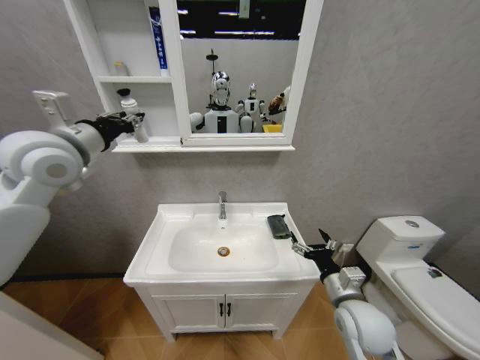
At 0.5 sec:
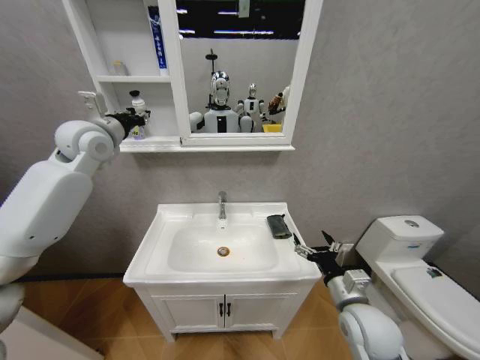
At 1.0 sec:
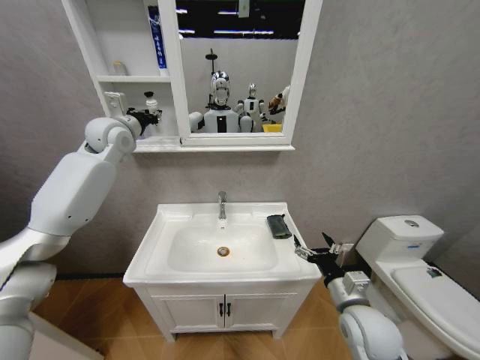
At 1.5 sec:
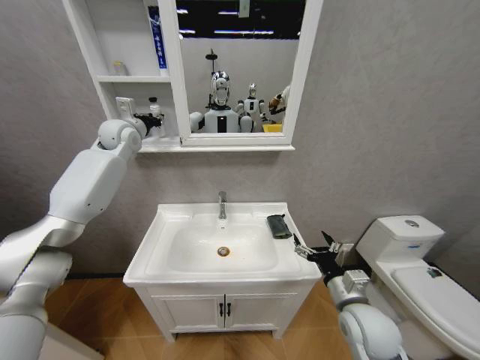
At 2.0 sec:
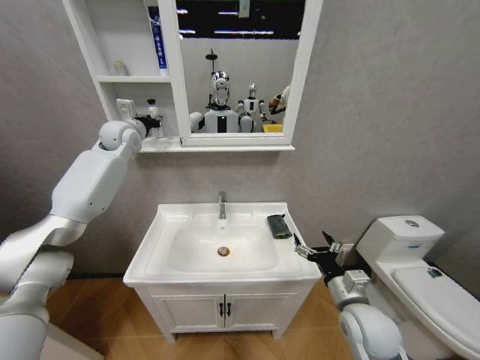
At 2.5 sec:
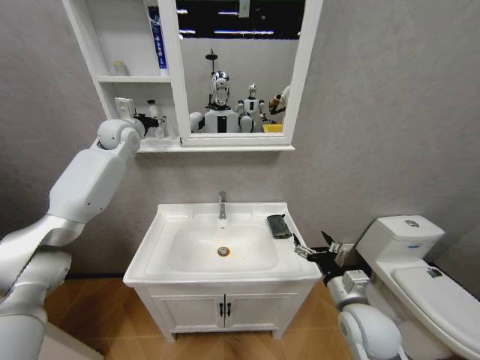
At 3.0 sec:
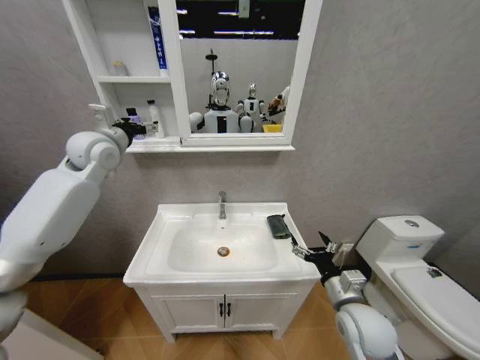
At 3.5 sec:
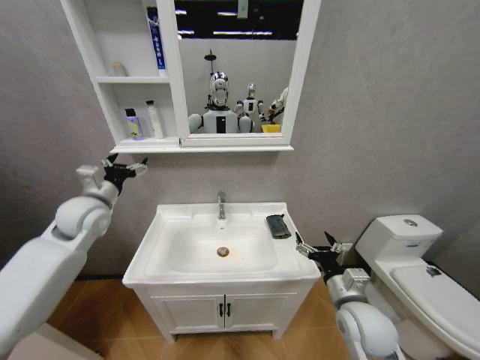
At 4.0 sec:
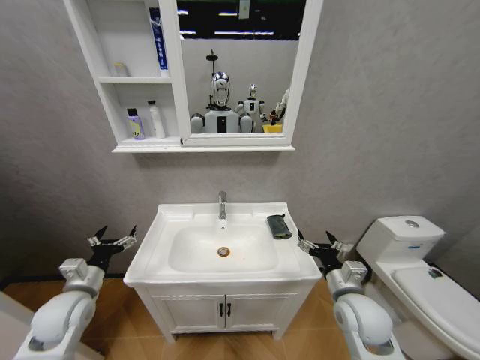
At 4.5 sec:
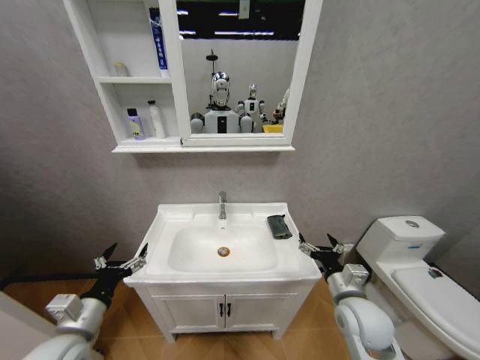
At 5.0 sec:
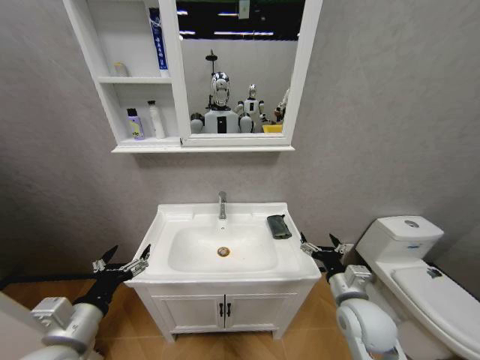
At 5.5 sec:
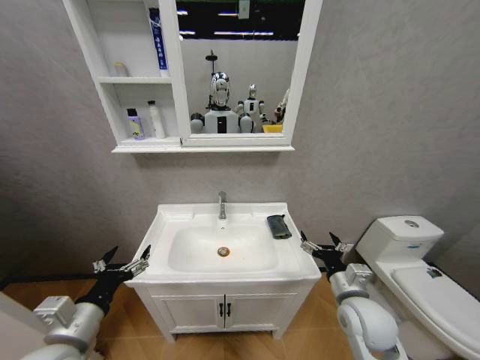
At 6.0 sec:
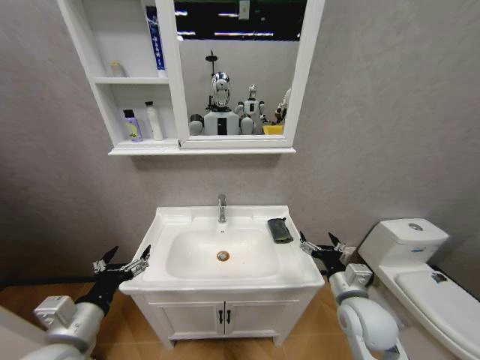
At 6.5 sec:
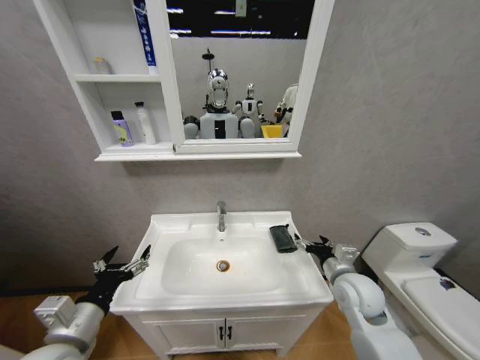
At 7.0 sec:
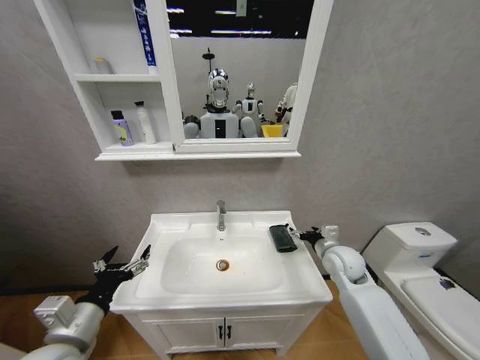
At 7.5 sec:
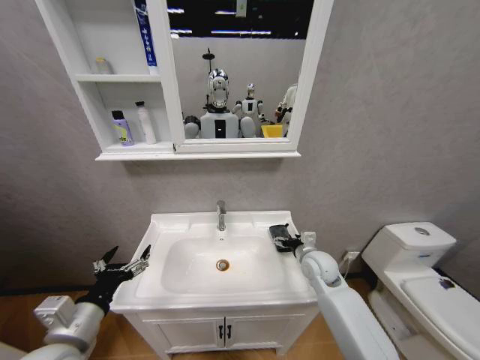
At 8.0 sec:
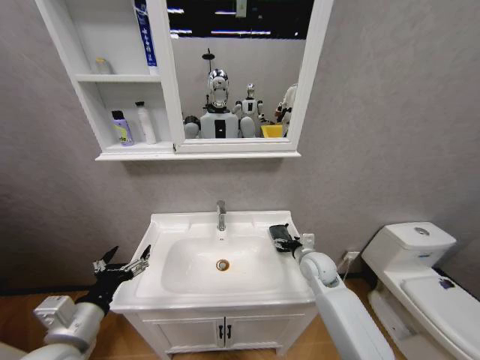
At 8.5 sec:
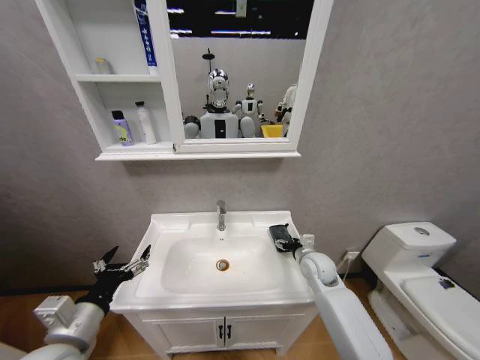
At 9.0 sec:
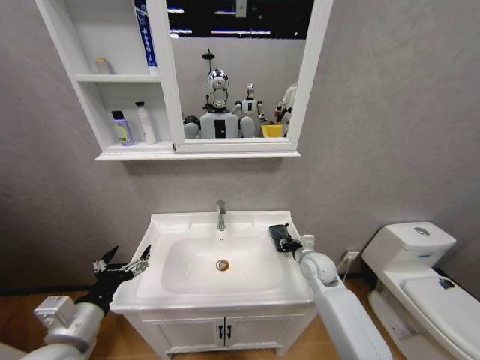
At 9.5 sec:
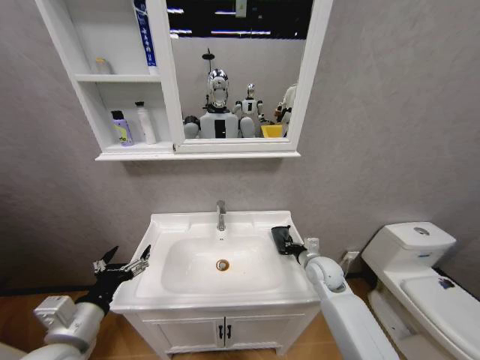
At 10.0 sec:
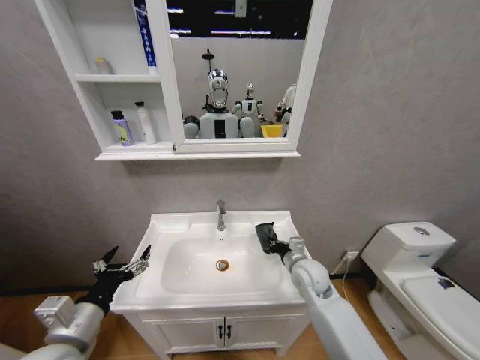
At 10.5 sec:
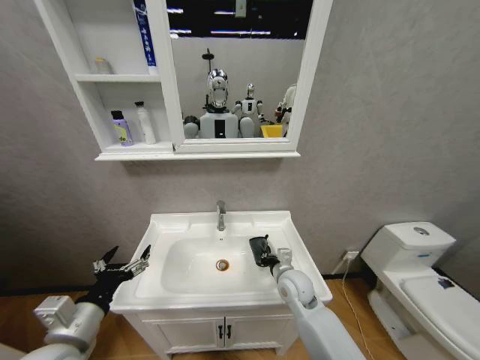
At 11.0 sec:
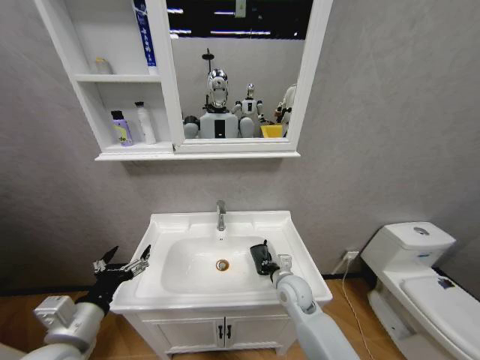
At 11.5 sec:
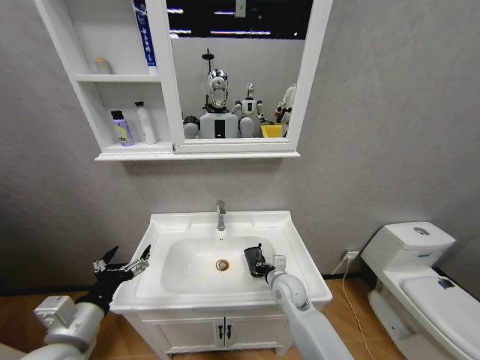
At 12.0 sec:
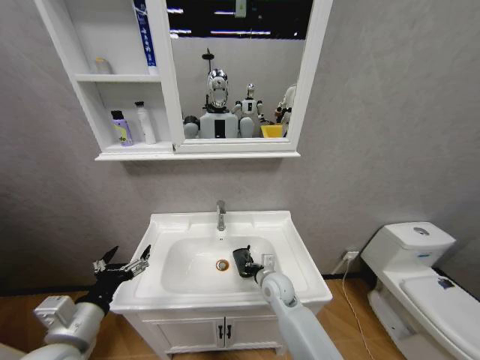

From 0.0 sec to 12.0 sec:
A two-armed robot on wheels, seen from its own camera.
Task of the whole recording: Move facial cleanser and shampoo from washbasin to cabinet, then wipe washbasin with towel.
From 0.0 sec to 2.0 sec: The left gripper goes approximately 20 cm forward.
From 2.0 sec to 4.0 sec: The left gripper shifts about 40 cm backward and downward, and opens its fingers.
From 4.0 sec to 6.0 sec: The left gripper shifts roughly 15 cm backward, to the right and upward.
From 6.0 sec to 8.0 sec: The right gripper heads forward, covering roughly 15 cm.
From 8.0 sec to 10.0 sec: The right gripper shifts about 5 cm to the left, and closes its fingers.
From 10.0 sec to 12.0 sec: The right gripper moves downward and to the left, approximately 10 cm.

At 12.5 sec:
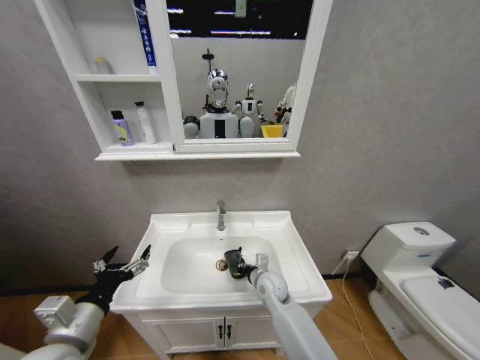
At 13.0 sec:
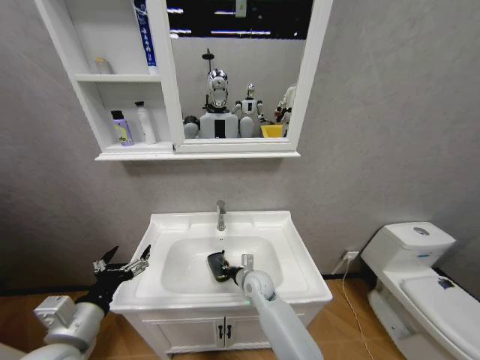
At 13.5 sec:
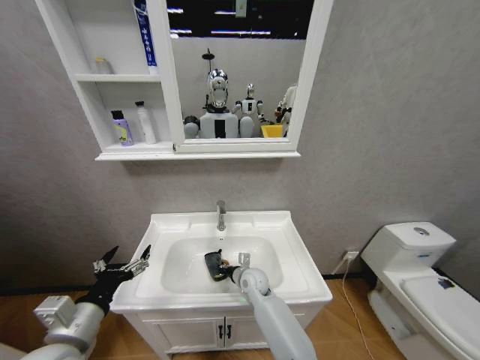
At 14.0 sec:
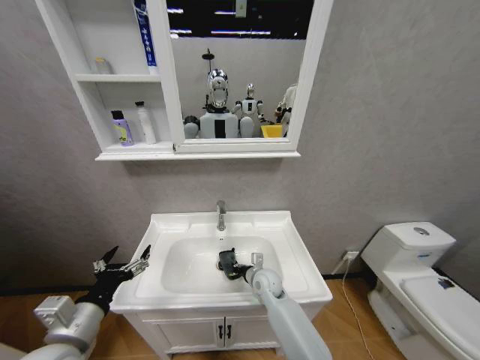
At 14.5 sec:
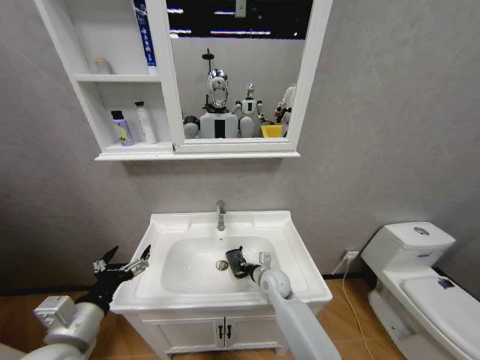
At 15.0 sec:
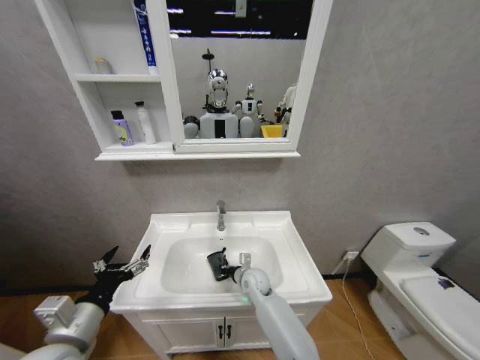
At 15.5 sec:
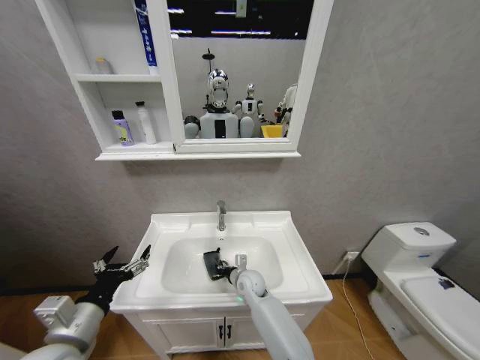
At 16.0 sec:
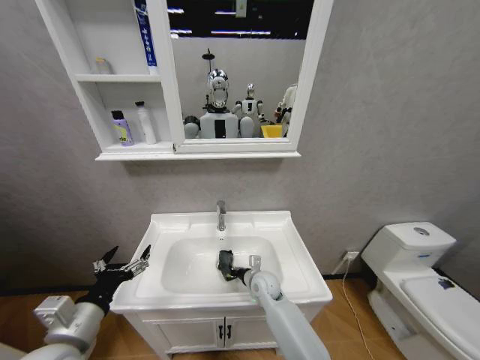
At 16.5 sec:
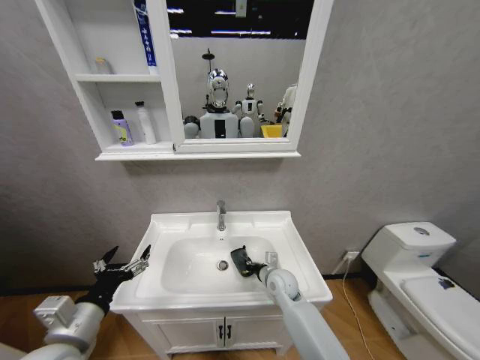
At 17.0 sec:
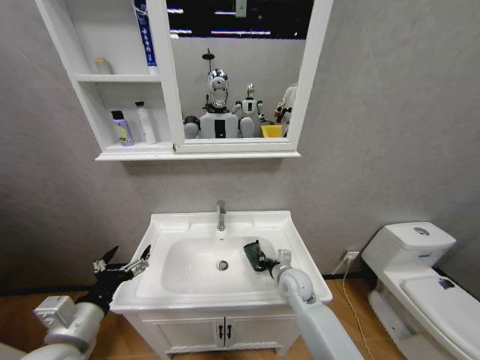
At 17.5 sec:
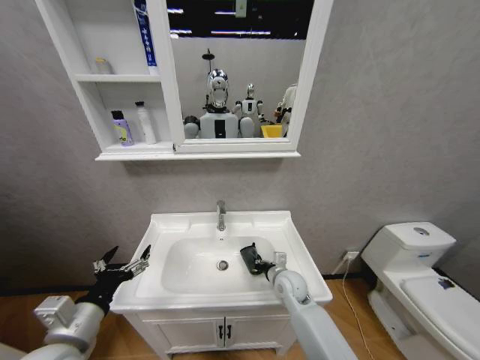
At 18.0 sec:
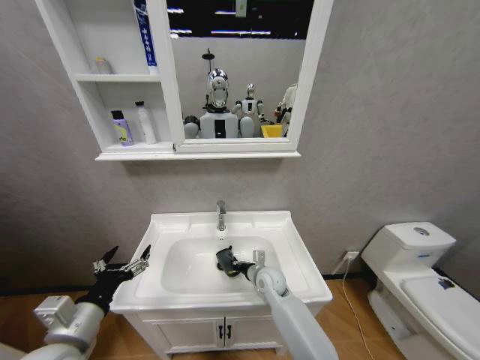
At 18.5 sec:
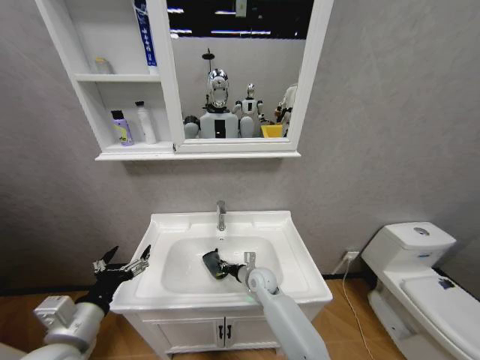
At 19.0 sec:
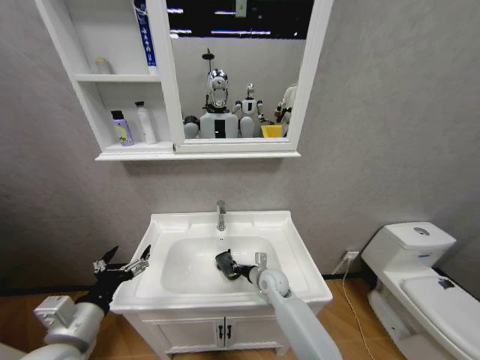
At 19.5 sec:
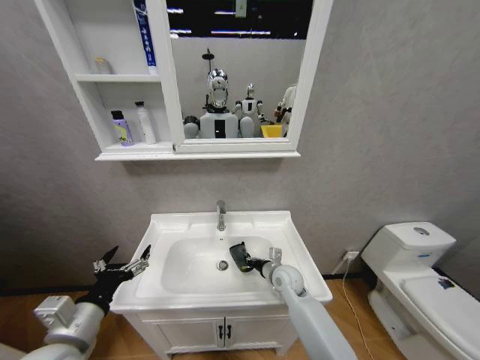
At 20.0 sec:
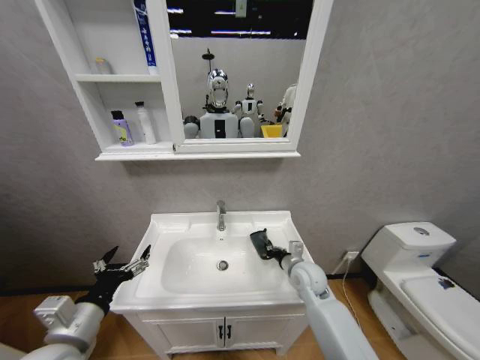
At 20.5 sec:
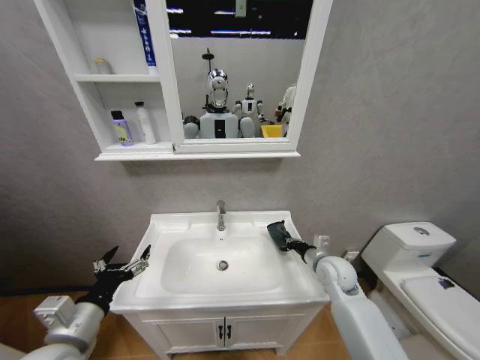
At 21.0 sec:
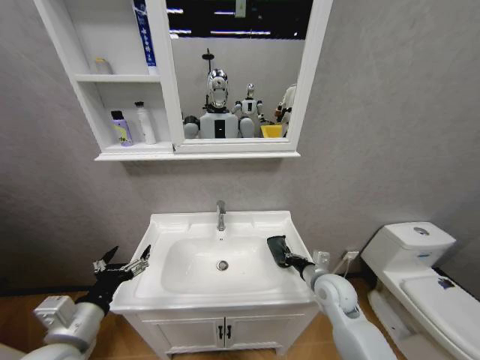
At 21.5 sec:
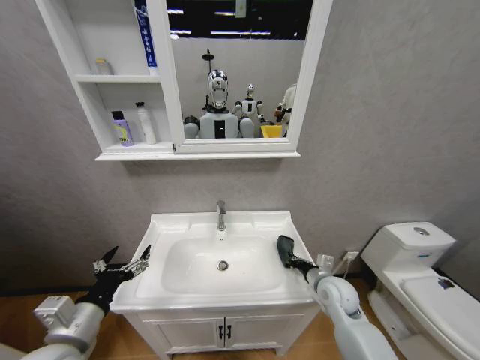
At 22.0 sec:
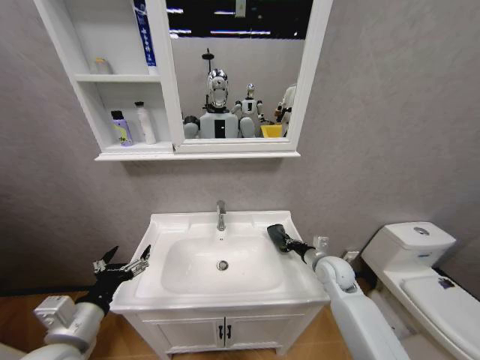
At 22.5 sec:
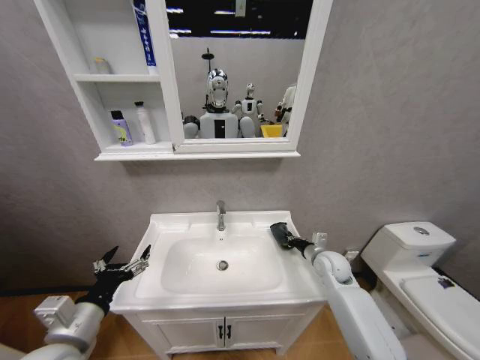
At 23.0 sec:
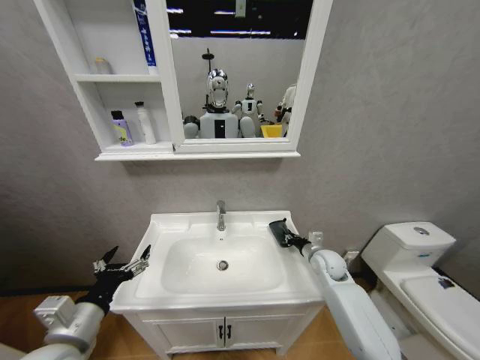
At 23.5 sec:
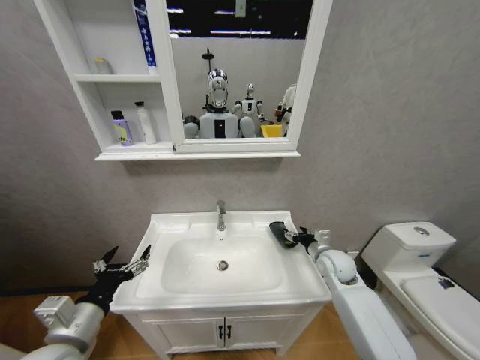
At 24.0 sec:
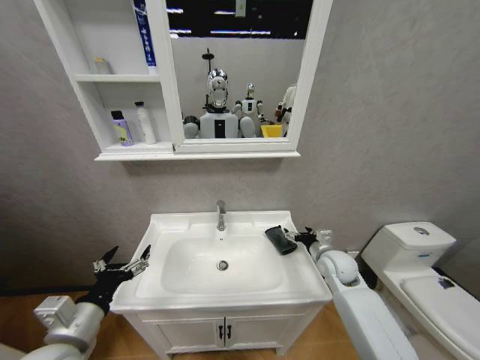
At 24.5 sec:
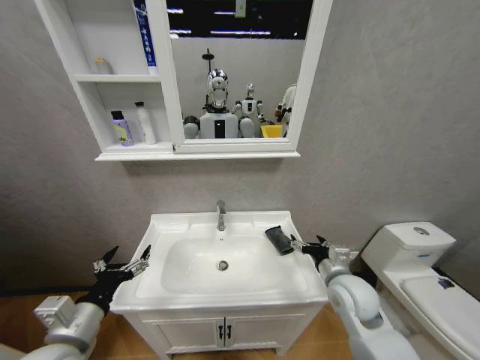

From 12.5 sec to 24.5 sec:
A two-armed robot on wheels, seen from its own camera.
Task of the whole recording: Move facial cleanser and shampoo from washbasin to cabinet, then wipe washbasin with towel.
From 12.5 sec to 14.5 sec: The grippers move only a little.
From 14.5 sec to 16.5 sec: The right gripper reaches about 5 cm to the left, then returns.
From 16.5 sec to 18.5 sec: The right gripper travels to the left by some 5 cm.
From 18.5 sec to 20.5 sec: The right gripper travels to the right and upward by some 25 cm.
From 22.5 sec to 24.5 sec: The right gripper travels backward and upward by approximately 10 cm, and opens up.

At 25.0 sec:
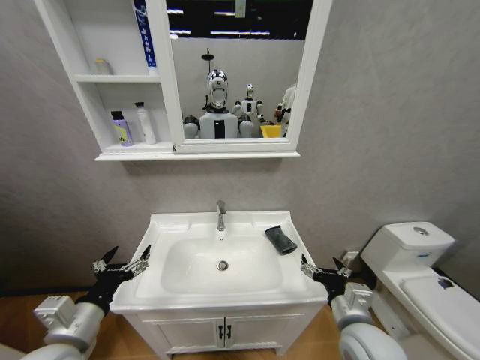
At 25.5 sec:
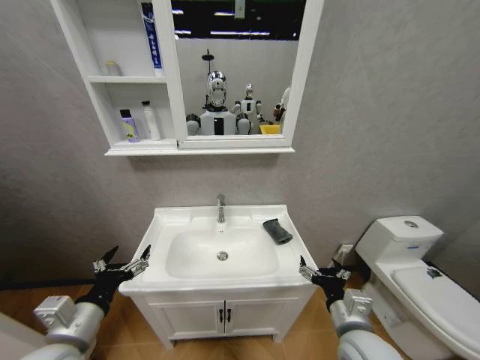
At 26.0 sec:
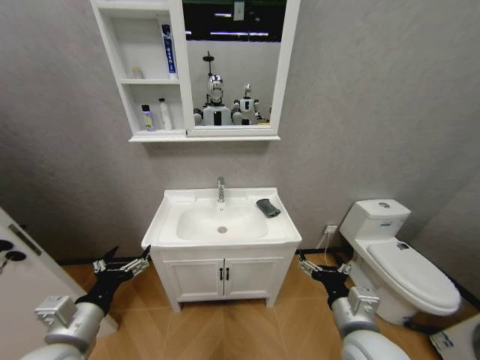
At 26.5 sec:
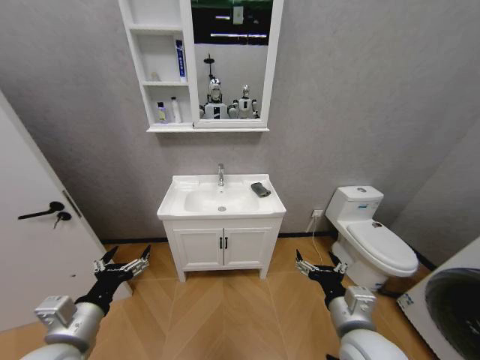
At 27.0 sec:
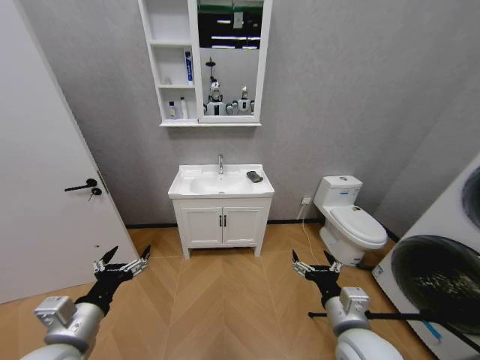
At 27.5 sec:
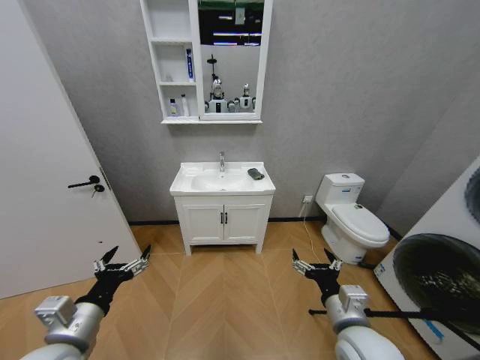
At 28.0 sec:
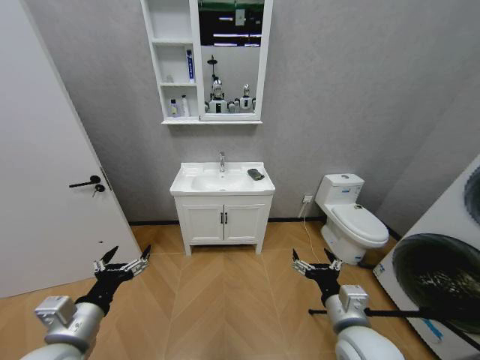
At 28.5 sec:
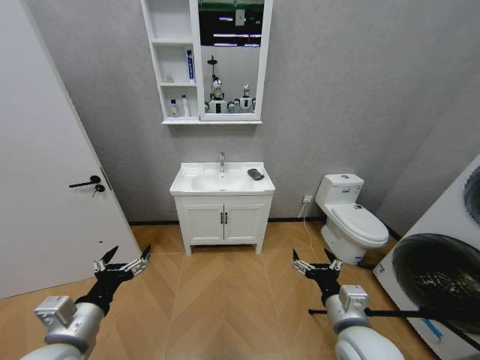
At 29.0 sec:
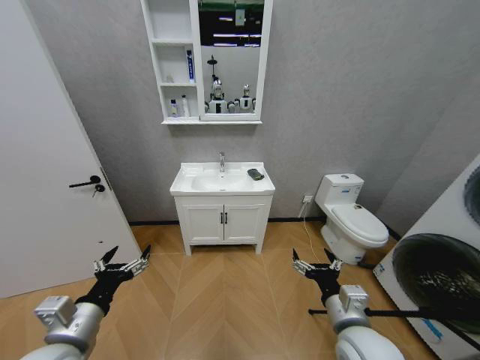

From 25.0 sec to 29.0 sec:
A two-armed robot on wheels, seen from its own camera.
Task of the whole recording: Move facial cleanser and shampoo from washbasin to cabinet, then wipe washbasin with towel.
From 27.0 sec to 29.0 sec: Both grippers stay put.
